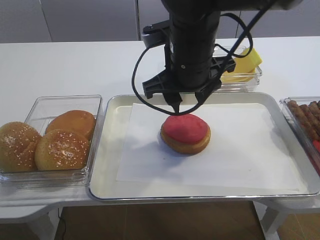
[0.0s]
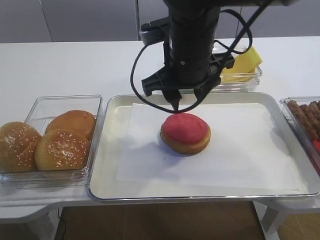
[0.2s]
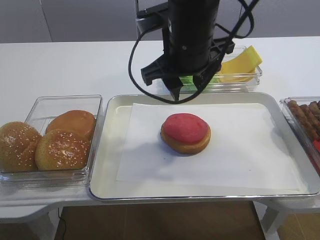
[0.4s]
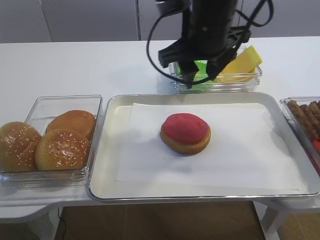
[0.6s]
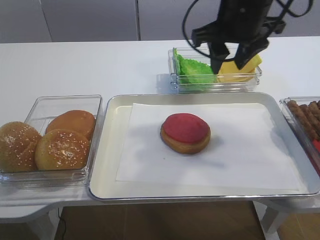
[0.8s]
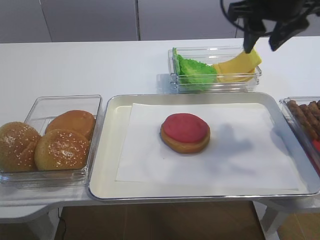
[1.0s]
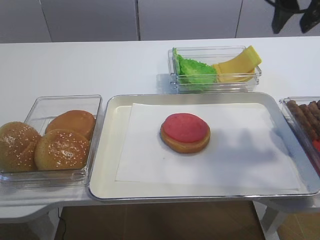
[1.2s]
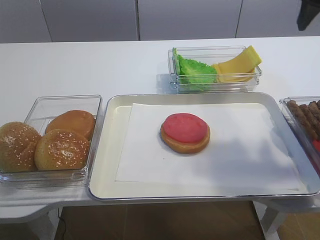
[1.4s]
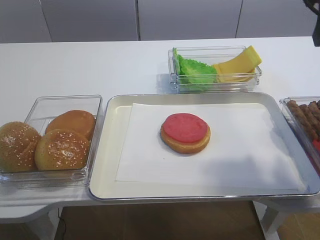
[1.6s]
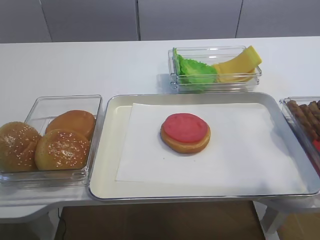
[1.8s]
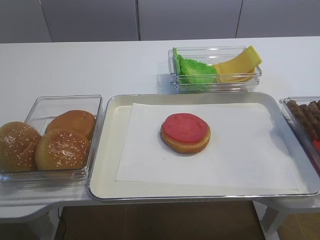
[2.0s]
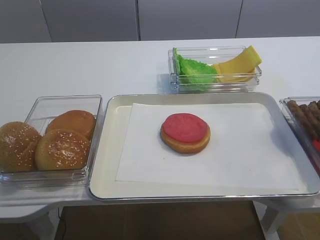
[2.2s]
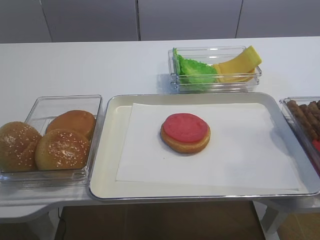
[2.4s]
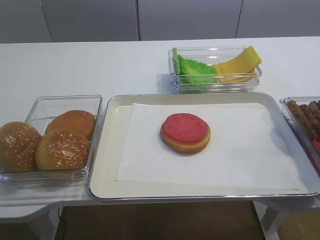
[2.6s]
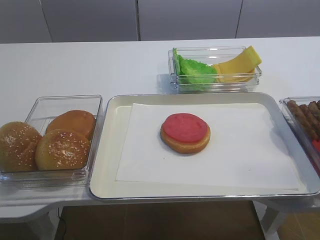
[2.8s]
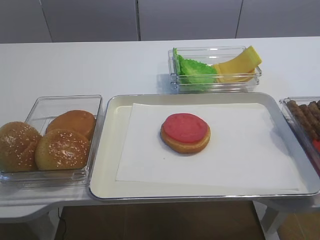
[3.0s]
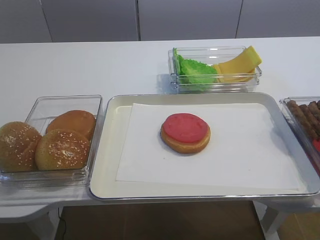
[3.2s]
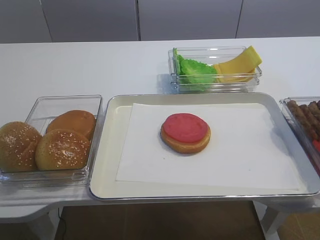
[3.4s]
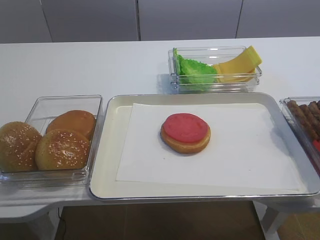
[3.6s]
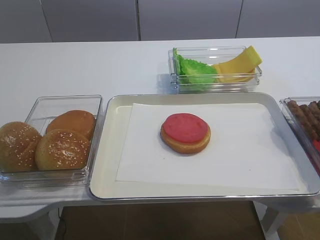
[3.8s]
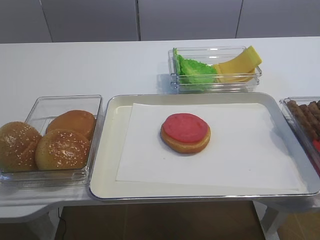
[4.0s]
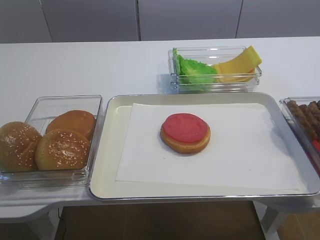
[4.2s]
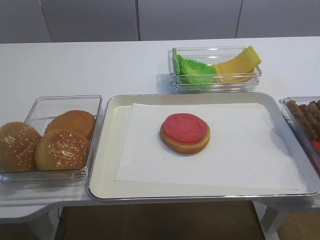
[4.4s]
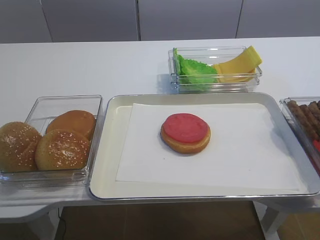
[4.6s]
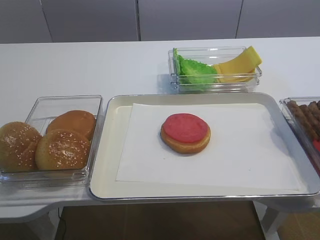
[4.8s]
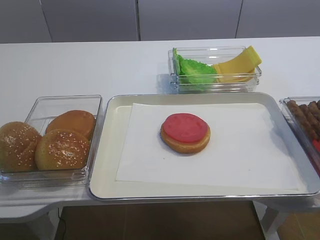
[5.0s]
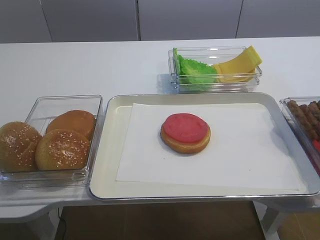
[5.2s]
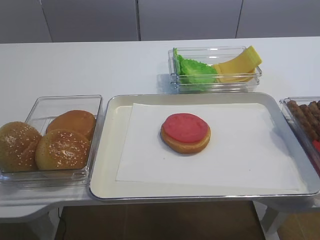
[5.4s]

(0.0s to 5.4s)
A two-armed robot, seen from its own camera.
0.0s - 1.4s: The right gripper moves to the right and upward, about 25 cm.
1.4s - 2.8s: The right gripper shifts approximately 30 cm backward.

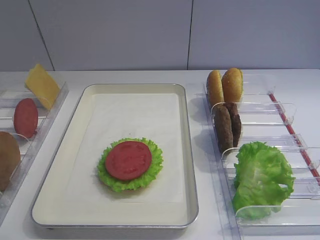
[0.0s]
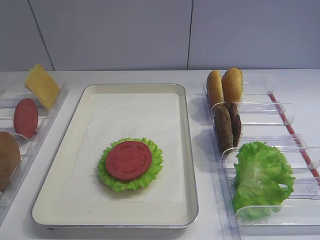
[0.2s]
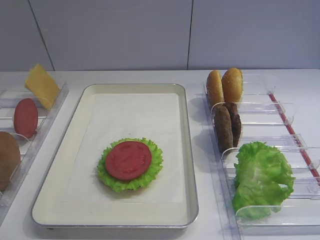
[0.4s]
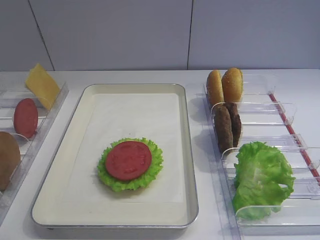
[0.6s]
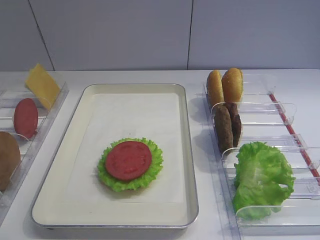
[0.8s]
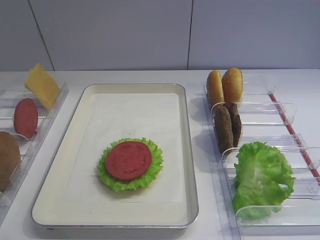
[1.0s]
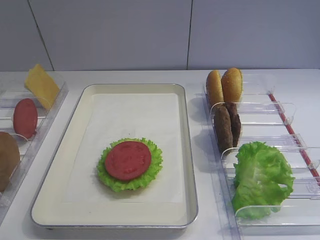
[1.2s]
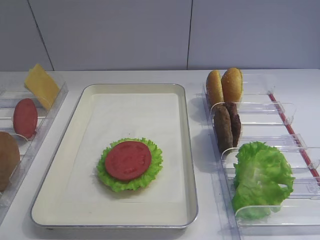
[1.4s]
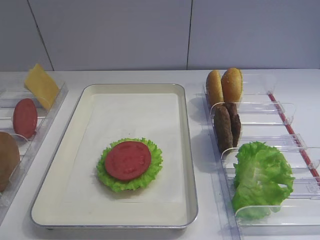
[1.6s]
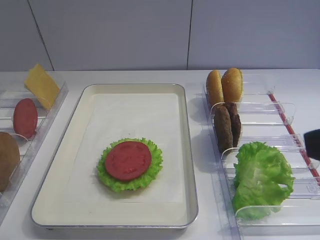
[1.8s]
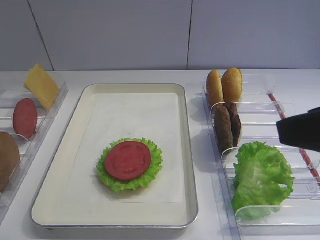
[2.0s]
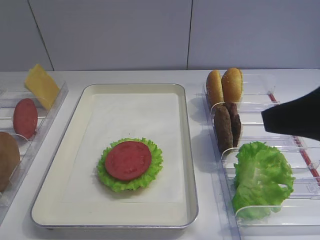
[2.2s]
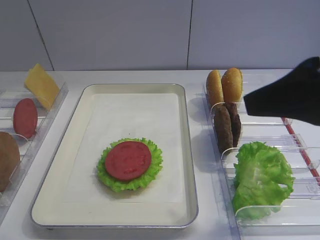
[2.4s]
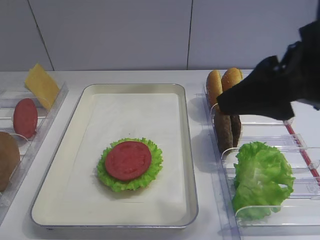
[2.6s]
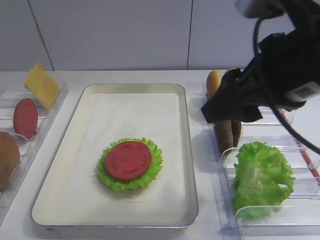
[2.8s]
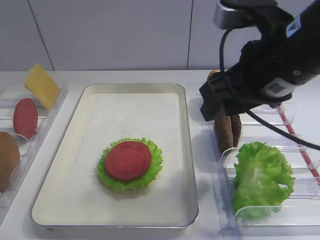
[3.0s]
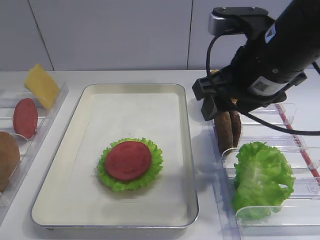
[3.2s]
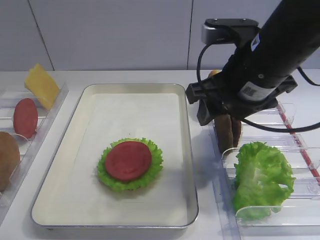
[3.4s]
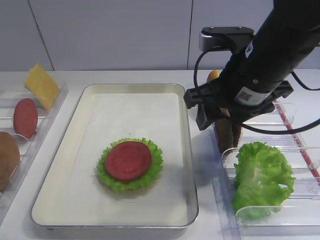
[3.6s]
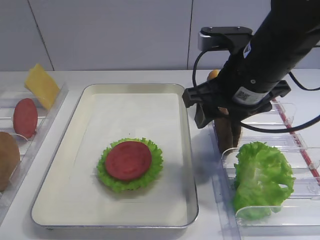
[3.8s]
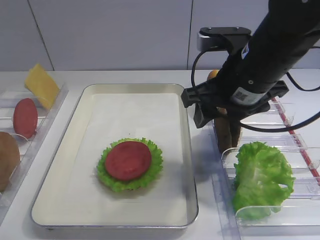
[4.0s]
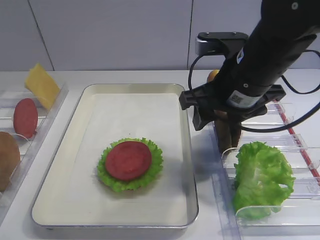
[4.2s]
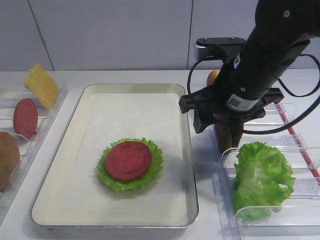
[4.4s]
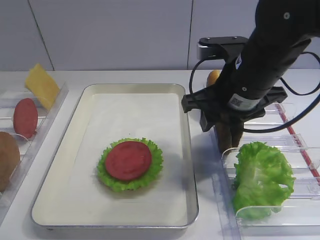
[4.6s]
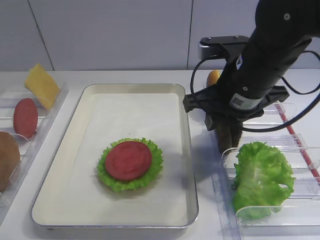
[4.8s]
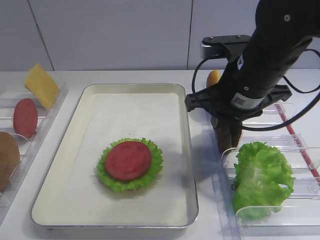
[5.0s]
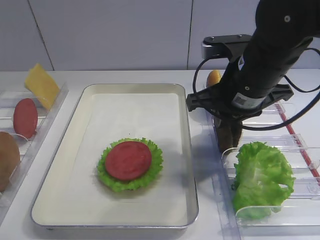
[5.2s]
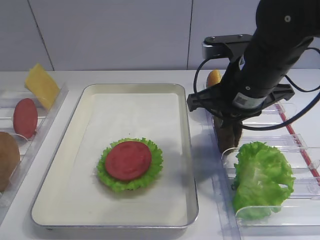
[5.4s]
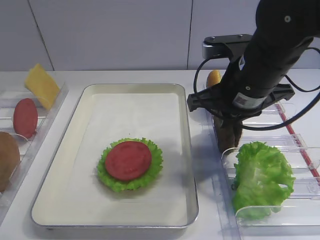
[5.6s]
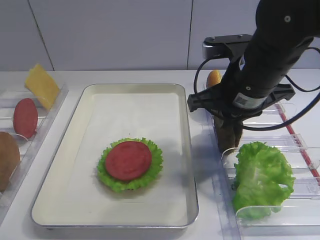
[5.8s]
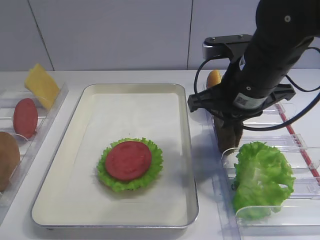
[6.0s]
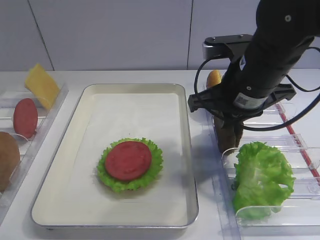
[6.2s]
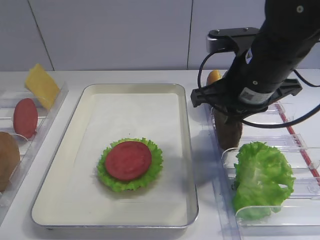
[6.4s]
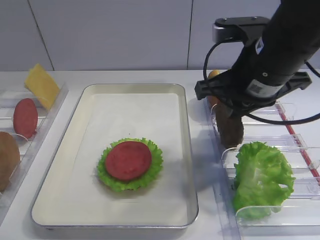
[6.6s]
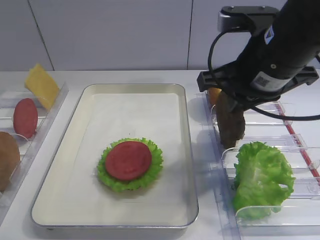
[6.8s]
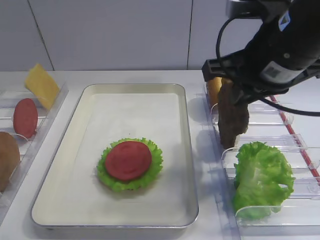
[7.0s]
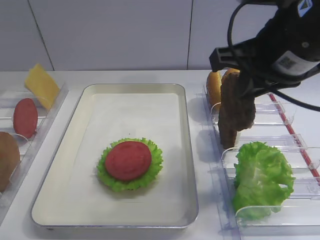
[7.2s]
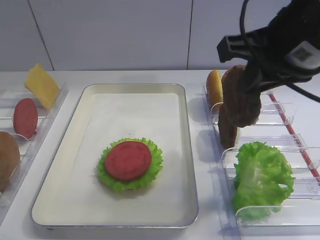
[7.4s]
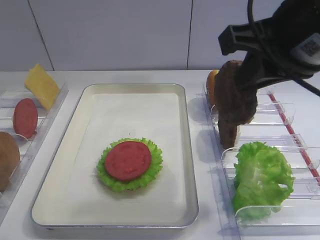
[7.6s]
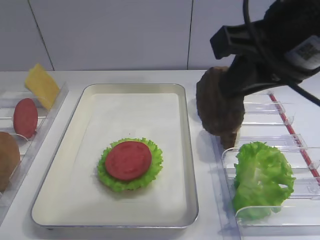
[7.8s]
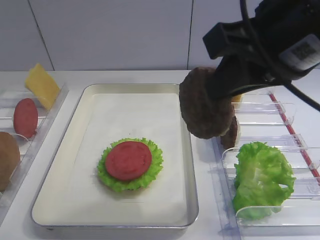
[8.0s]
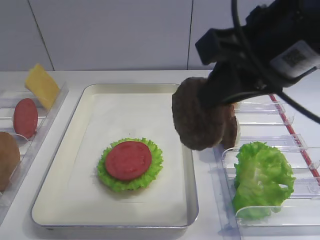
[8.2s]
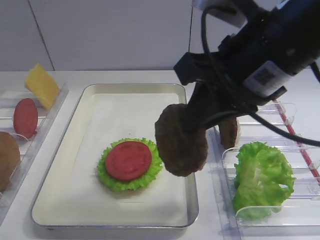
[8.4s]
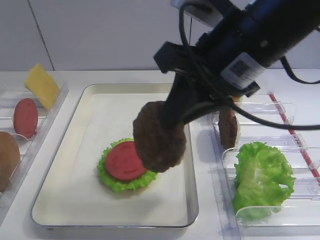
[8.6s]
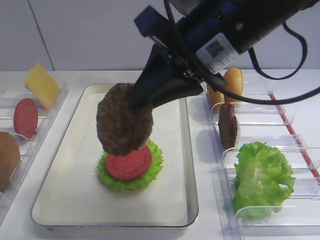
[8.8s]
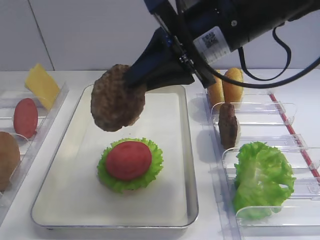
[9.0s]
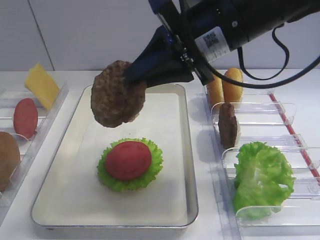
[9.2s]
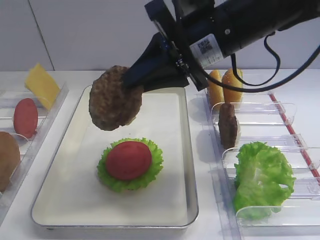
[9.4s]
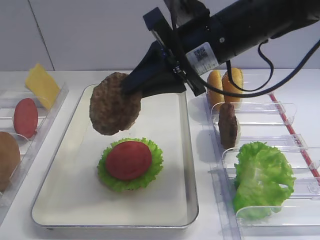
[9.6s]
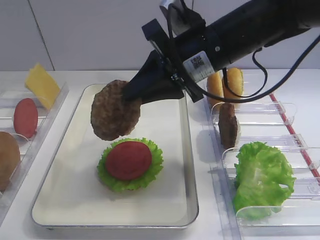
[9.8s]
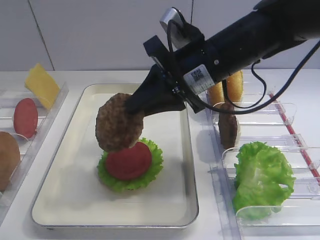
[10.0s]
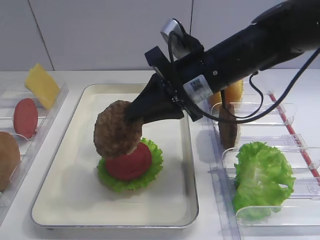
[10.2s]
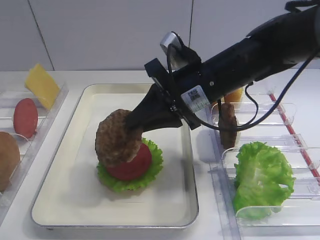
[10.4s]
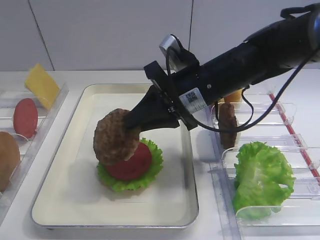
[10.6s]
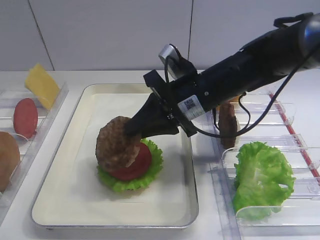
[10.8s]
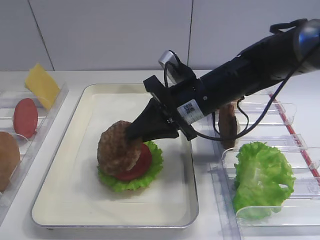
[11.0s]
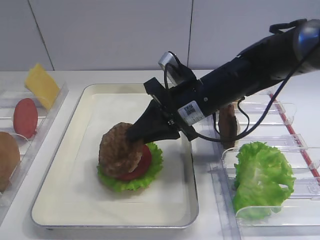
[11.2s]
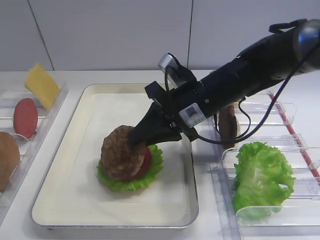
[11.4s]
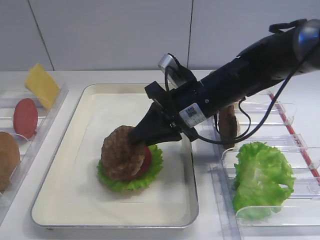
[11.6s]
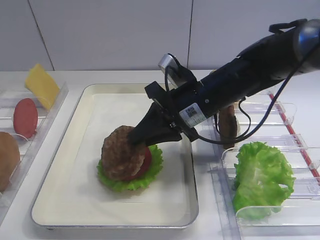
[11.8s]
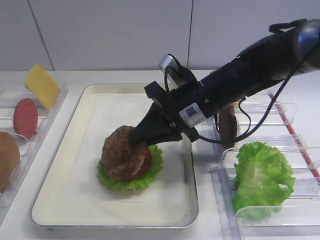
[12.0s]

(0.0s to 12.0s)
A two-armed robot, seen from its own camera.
Step, 0.0s - 6.6s: Pick up the cutlet with the right gripper.
1.6s - 3.0s: The right gripper shifts some 20 cm forward and to the left.
3.0s - 4.4s: The right gripper moves downward, approximately 5 cm.
4.4s - 6.0s: The right gripper closes.
6.0s - 7.6s: The right gripper goes about 15 cm upward and backward.
7.6s - 9.0s: The right gripper travels forward and to the left by approximately 10 cm.
9.0s - 10.4s: The right gripper goes some 10 cm downward.
10.4s - 12.0s: The grippers make only small movements.

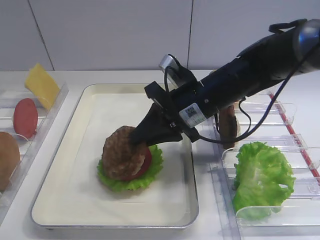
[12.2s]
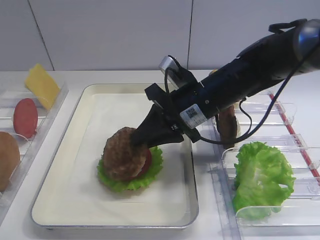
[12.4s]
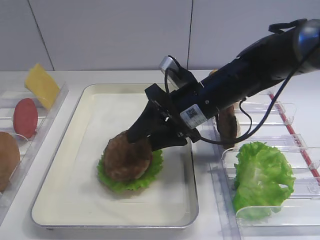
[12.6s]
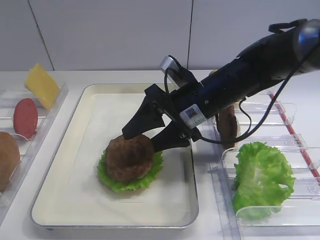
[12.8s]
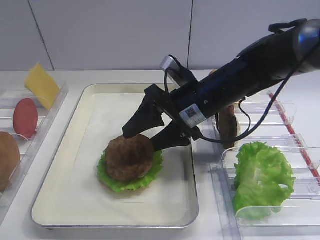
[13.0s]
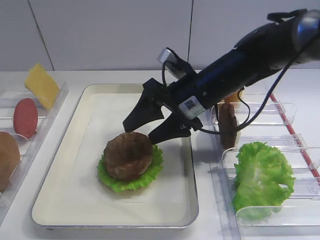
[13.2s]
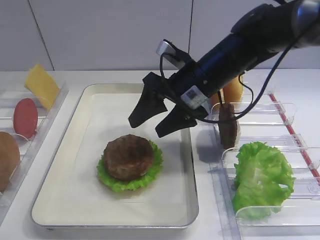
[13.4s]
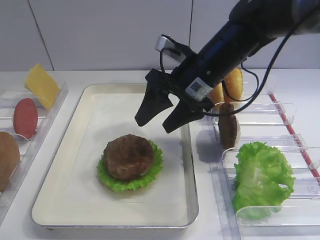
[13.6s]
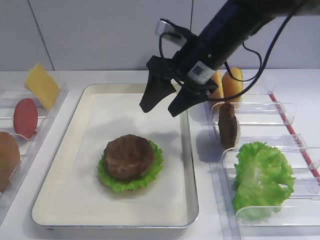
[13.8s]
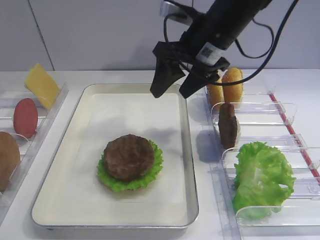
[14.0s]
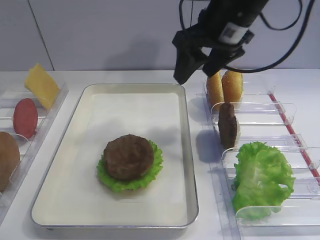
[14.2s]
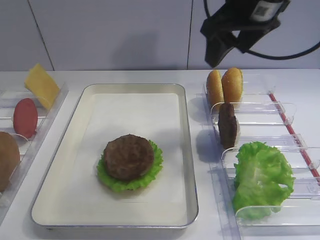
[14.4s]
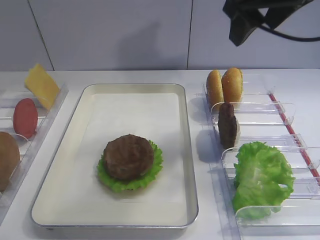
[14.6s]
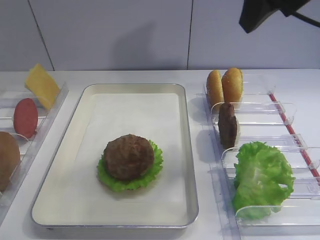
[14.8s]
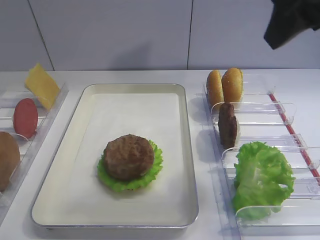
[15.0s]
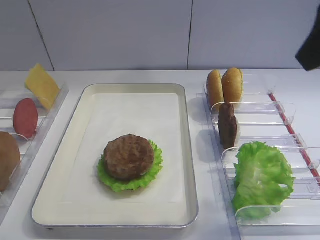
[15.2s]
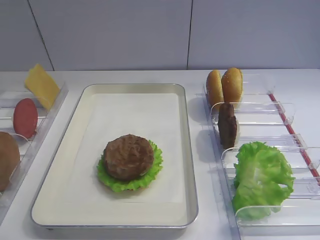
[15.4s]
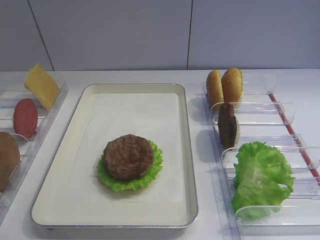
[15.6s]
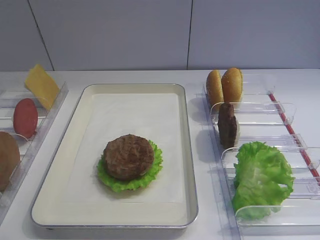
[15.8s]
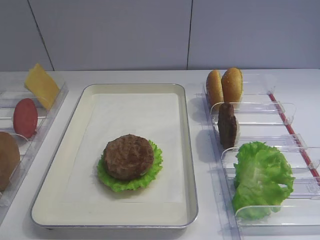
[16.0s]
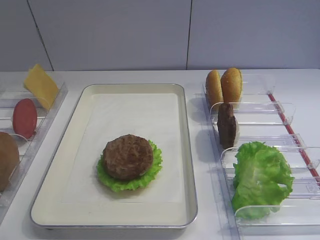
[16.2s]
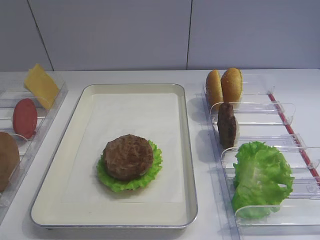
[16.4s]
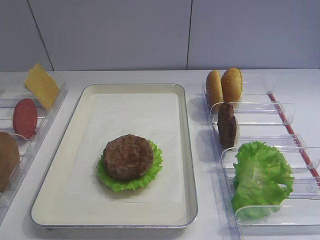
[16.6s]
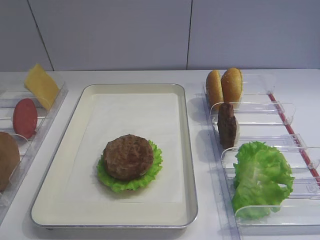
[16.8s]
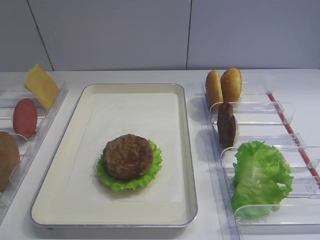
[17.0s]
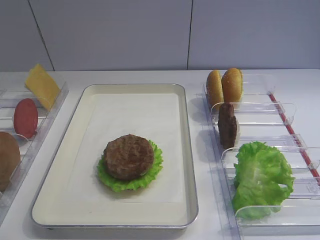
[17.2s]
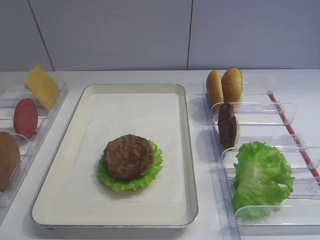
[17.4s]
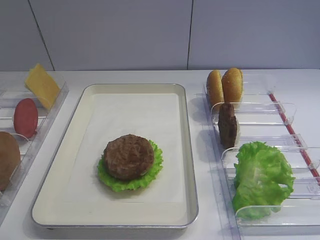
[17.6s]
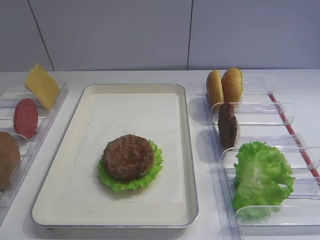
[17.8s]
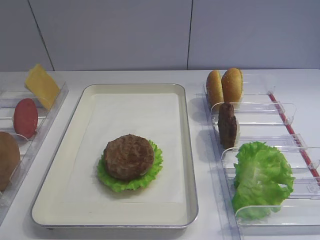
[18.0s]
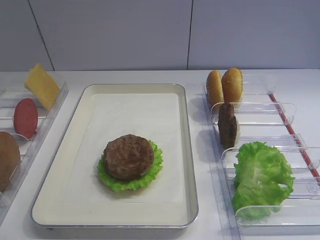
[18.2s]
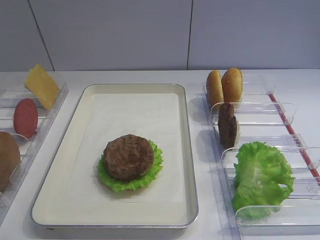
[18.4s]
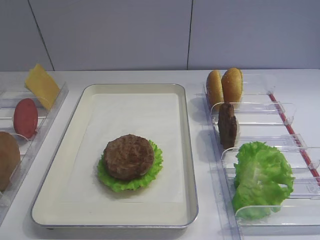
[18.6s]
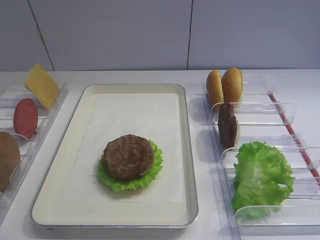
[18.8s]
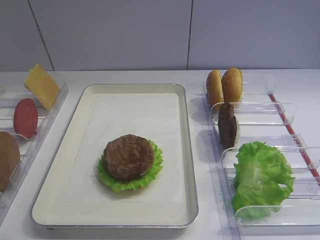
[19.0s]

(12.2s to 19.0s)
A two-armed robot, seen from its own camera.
12.2s - 13.6s: The right gripper opens.
13.6s - 15.0s: The right gripper is displaced upward, backward and to the right by about 25 cm.
15.0s - 16.2s: The right gripper heads backward and downward, covering about 20 cm.
16.2s - 17.6s: The right gripper travels downward by approximately 5 cm.
17.6s - 19.0s: Both grippers stay put.
